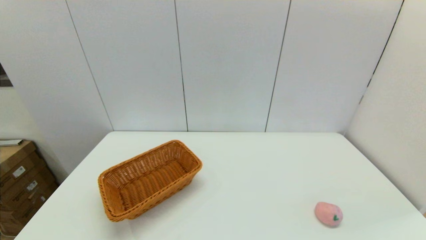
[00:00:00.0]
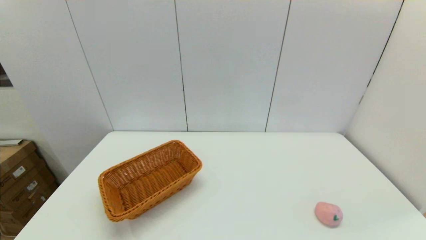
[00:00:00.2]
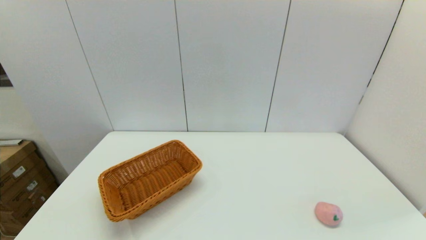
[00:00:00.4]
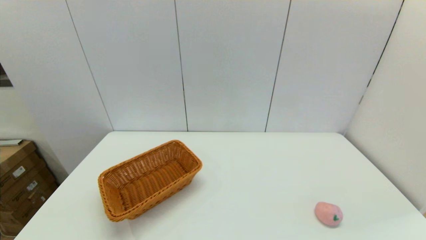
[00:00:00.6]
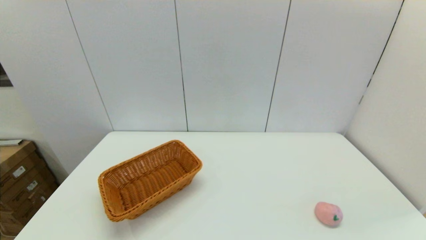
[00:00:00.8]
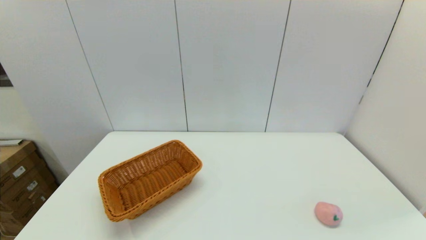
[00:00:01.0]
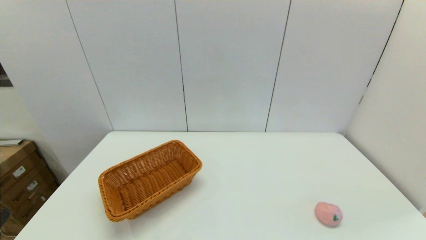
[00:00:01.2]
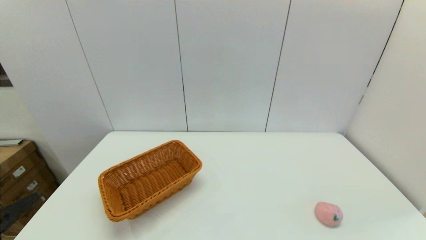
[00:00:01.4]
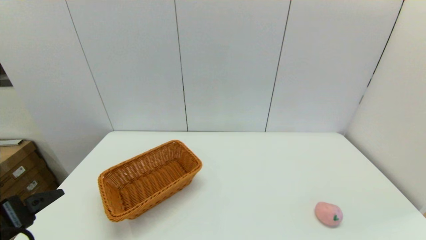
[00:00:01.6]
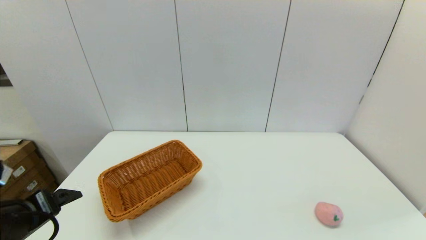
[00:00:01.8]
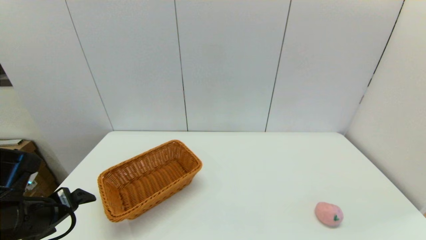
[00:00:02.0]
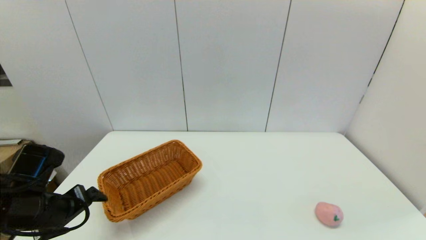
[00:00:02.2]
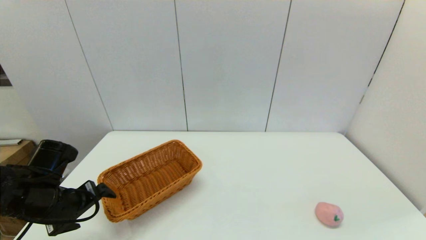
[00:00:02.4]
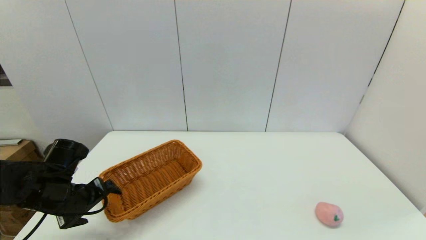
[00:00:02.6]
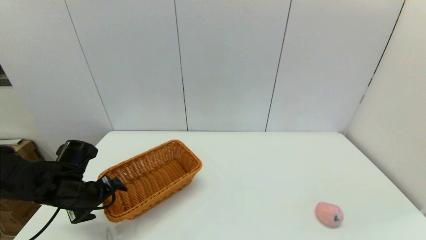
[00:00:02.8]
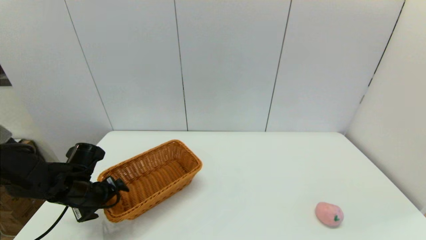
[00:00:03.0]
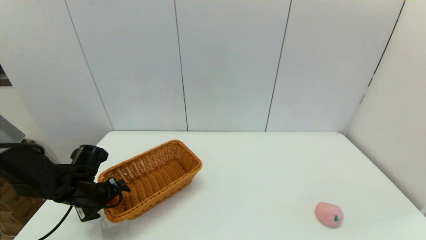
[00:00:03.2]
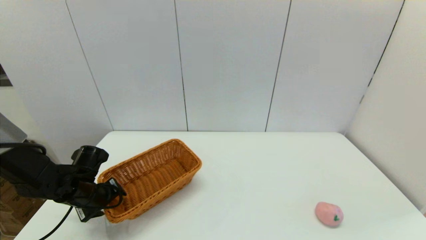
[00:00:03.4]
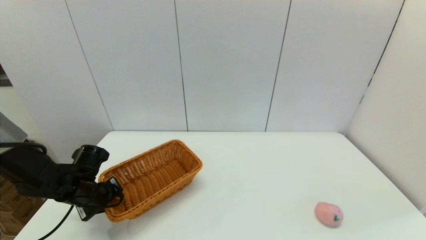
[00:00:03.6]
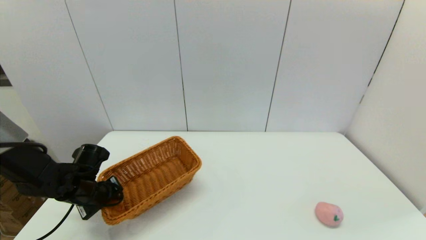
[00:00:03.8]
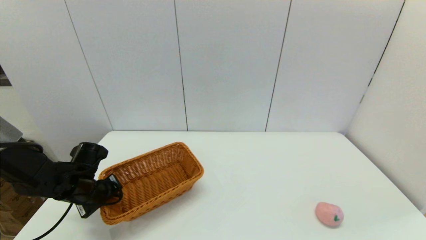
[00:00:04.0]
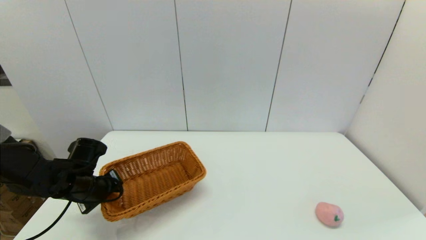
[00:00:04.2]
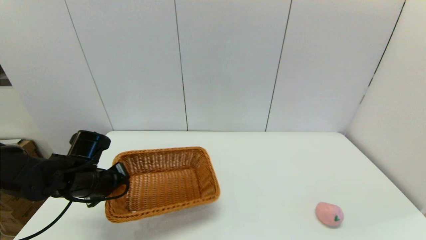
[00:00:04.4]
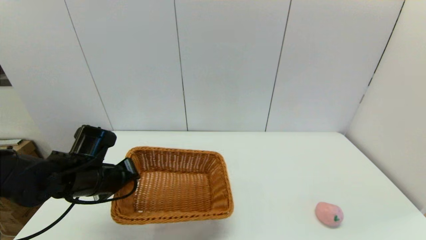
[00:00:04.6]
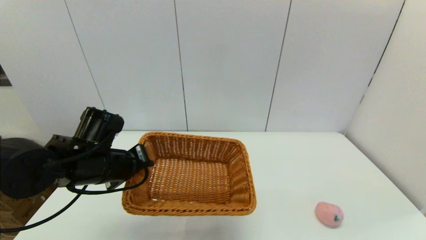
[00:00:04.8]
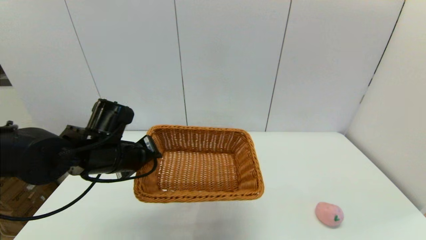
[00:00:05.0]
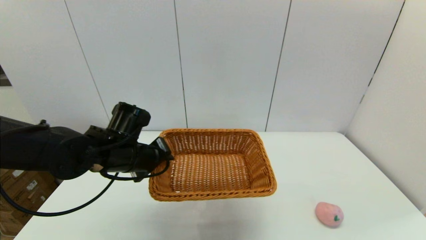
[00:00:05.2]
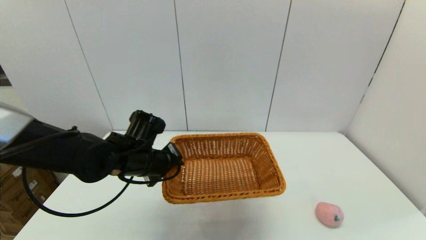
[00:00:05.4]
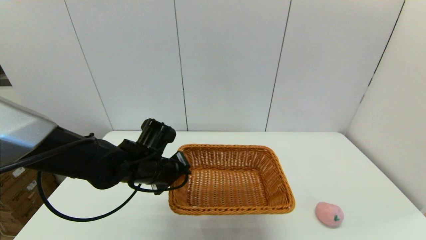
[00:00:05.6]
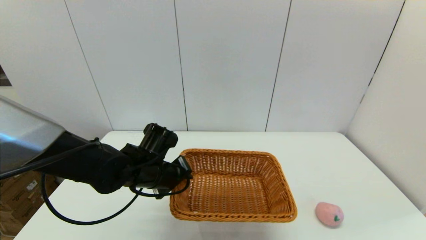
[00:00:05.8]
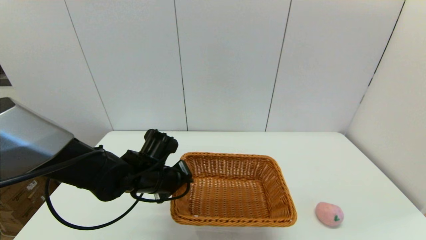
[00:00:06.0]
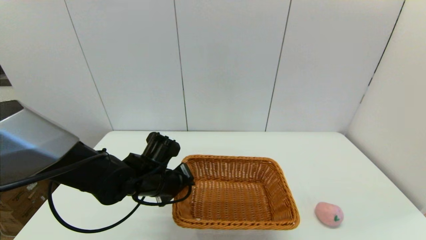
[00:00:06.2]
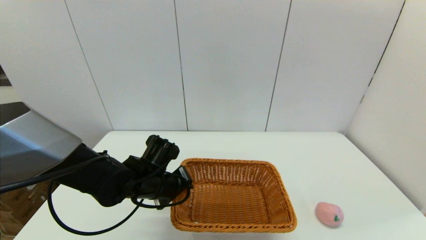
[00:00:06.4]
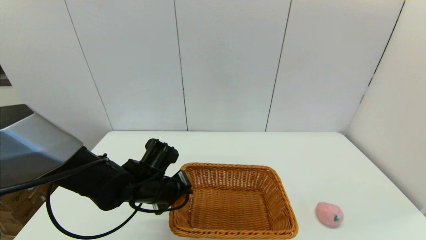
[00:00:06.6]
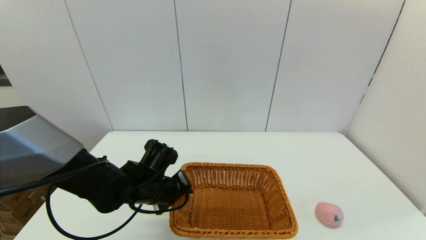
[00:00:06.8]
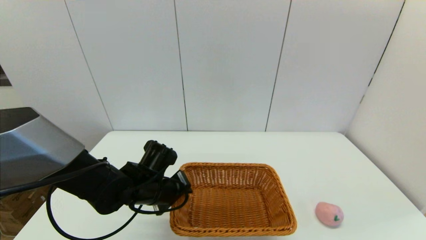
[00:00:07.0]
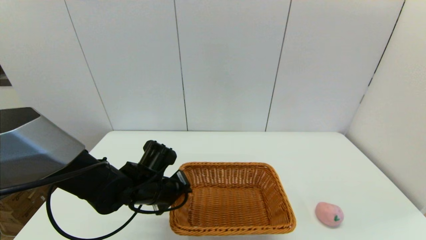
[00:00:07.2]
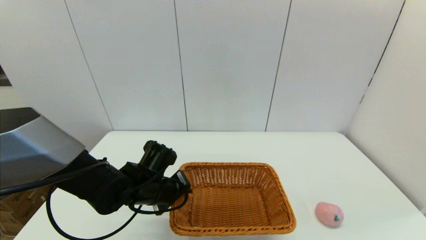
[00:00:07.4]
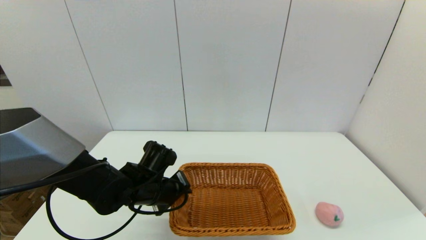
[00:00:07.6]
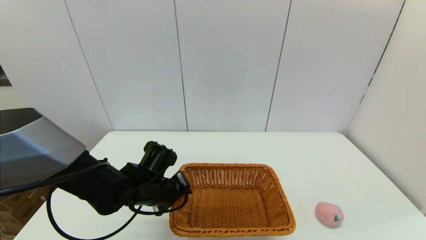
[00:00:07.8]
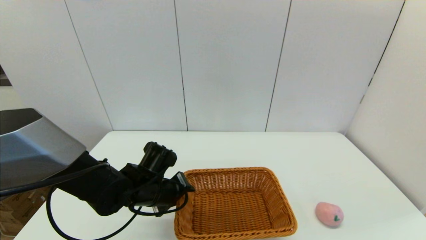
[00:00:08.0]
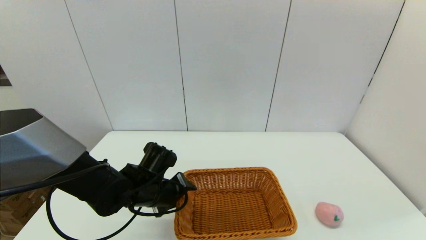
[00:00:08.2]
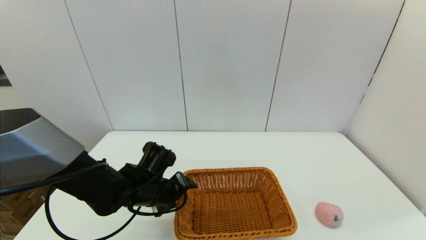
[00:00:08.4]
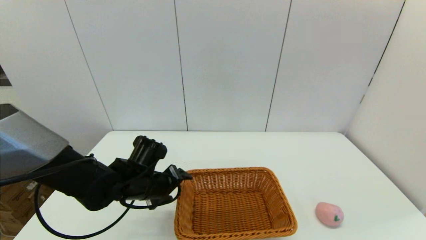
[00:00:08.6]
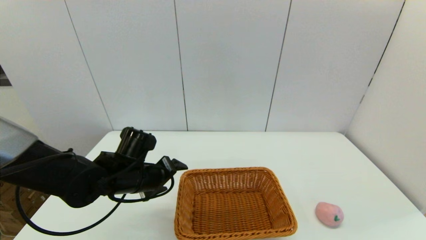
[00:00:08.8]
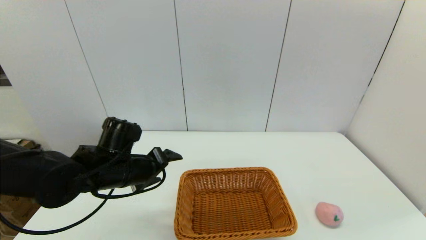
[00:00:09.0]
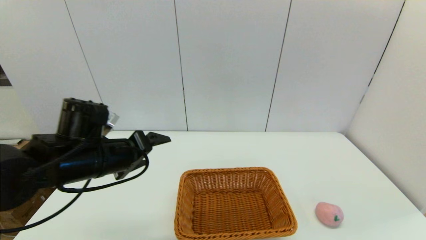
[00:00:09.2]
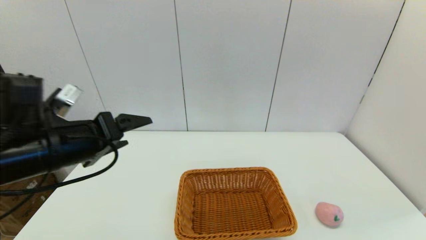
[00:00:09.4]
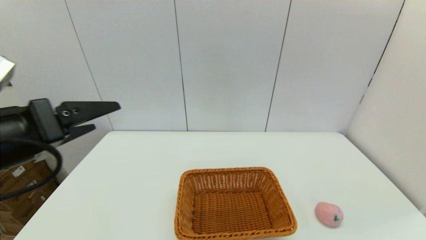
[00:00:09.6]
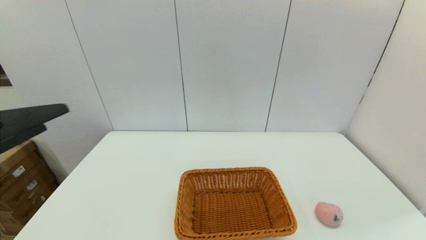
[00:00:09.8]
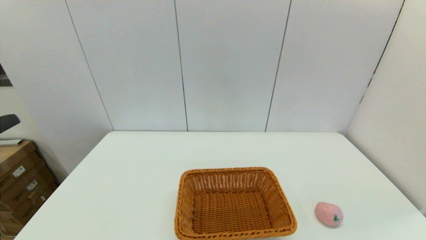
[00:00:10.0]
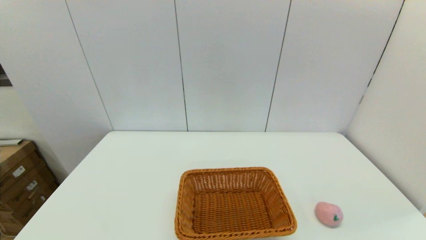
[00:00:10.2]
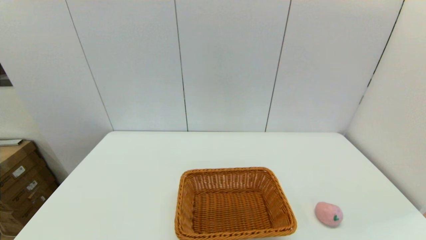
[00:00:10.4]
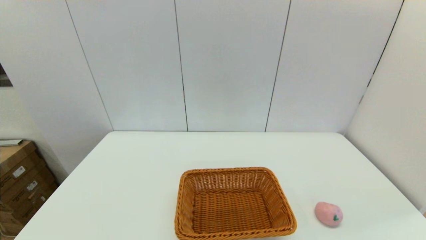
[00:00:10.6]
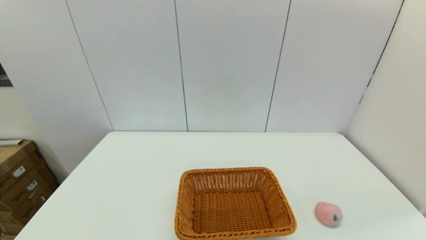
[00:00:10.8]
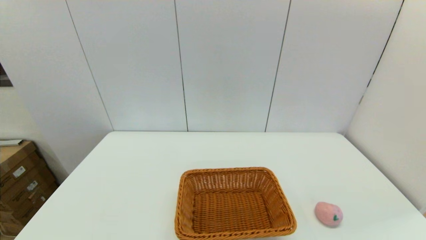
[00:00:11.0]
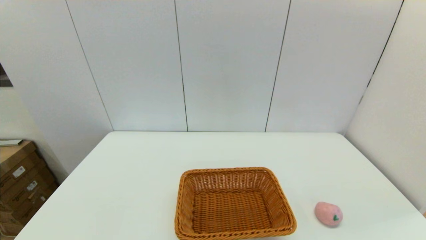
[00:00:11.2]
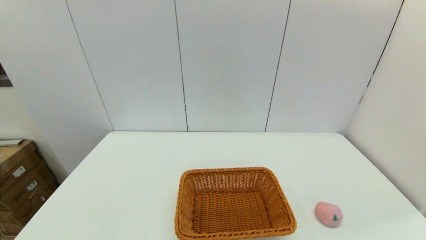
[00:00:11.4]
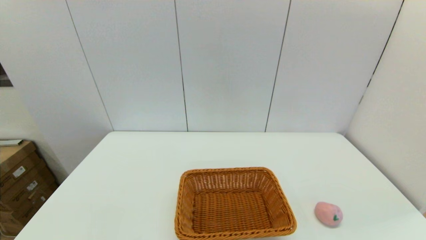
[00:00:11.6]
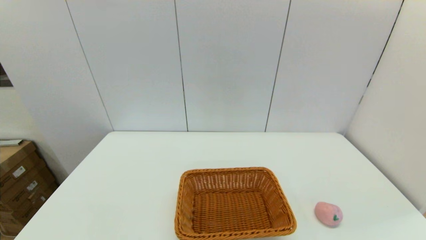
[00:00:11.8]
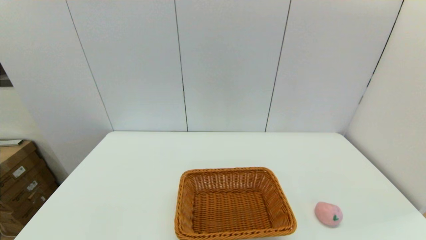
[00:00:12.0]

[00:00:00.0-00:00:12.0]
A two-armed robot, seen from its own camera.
Step, 00:00:00.0 to 00:00:03.8: Grasp the light basket with the left gripper.
Step, 00:00:04.2 to 00:00:08.2: Place the light basket on the middle of the table with the left gripper.
00:00:00.0 to 00:00:01.6: The left gripper heads forward and upward, covering roughly 15 cm.
00:00:01.6 to 00:00:03.0: The left gripper travels forward and downward by about 20 cm.
00:00:03.0 to 00:00:04.4: The left gripper closes up.
00:00:04.4 to 00:00:06.0: The left gripper is displaced to the right by roughly 15 cm.
00:00:06.0 to 00:00:07.6: There are only small adjustments of the grippers.
00:00:07.6 to 00:00:09.0: The left gripper heads upward, covering some 10 cm, and opens its fingers.
00:00:09.0 to 00:00:10.4: The left gripper heads backward and to the left, covering roughly 30 cm.

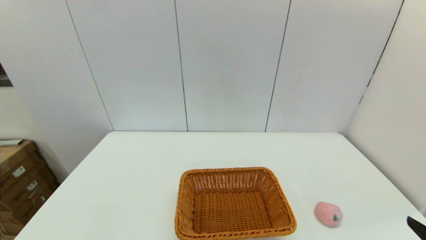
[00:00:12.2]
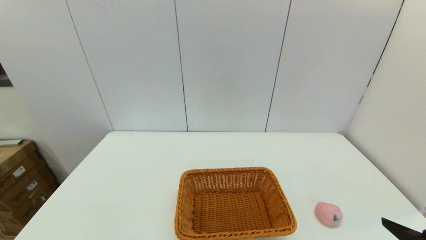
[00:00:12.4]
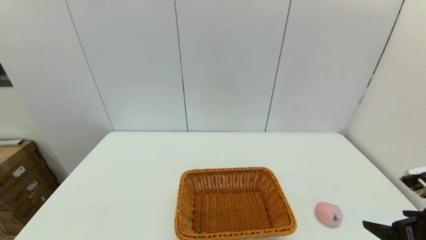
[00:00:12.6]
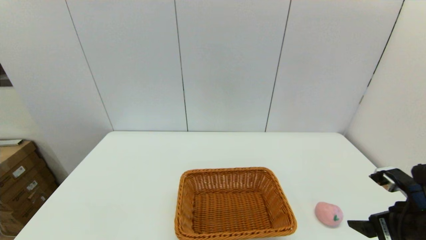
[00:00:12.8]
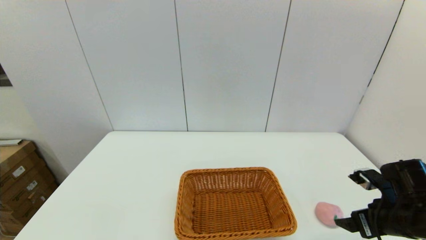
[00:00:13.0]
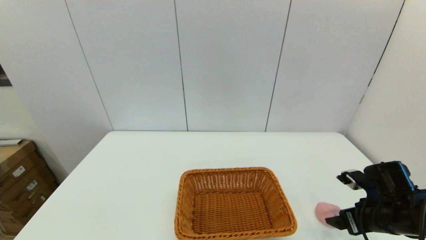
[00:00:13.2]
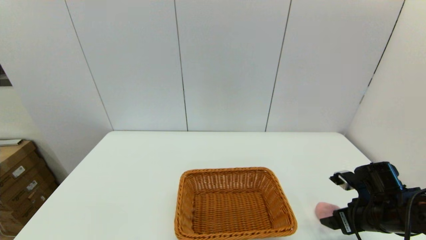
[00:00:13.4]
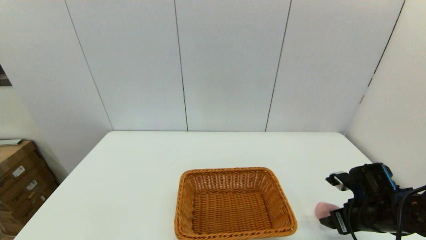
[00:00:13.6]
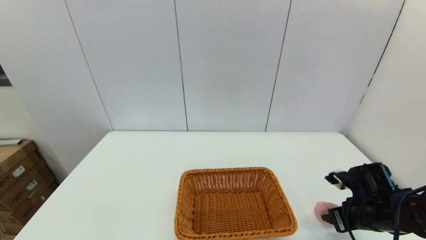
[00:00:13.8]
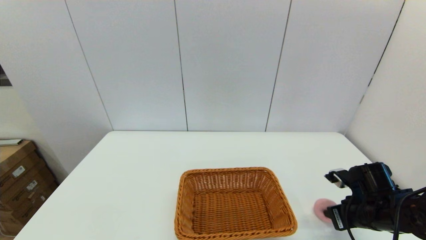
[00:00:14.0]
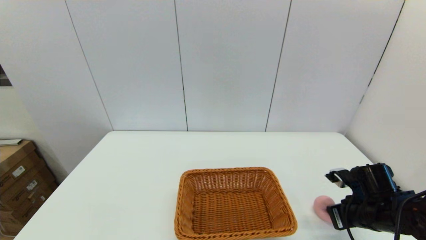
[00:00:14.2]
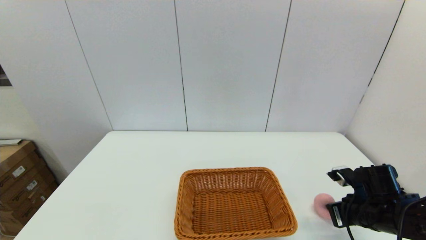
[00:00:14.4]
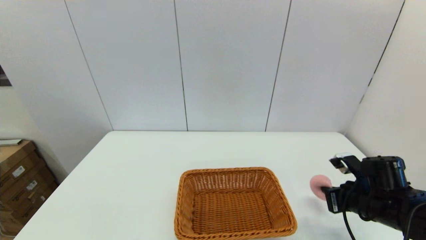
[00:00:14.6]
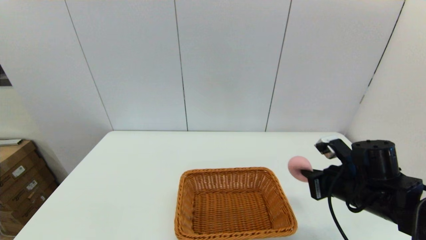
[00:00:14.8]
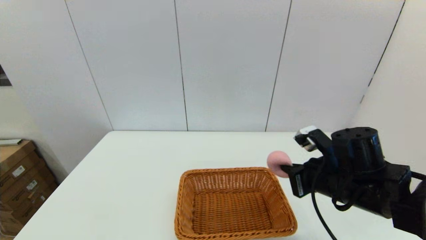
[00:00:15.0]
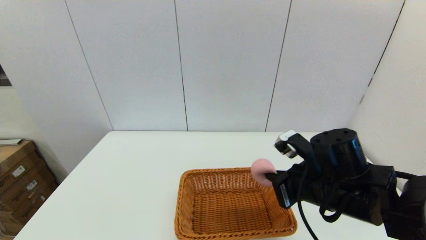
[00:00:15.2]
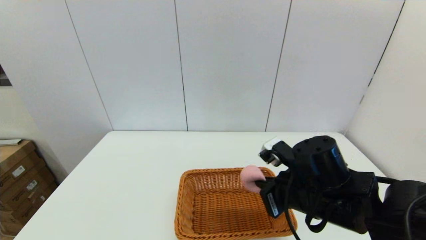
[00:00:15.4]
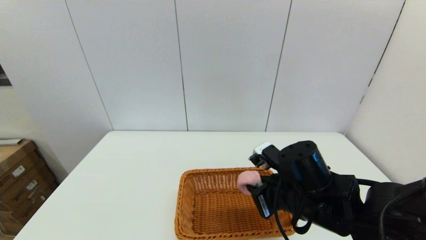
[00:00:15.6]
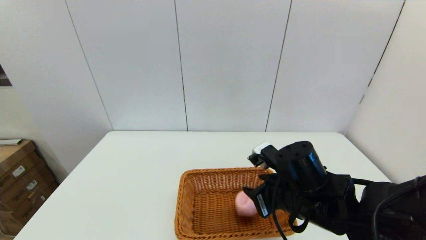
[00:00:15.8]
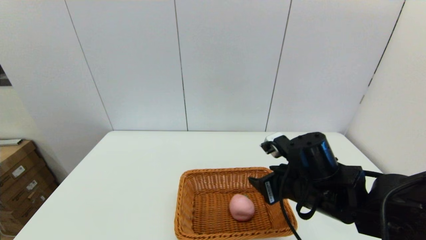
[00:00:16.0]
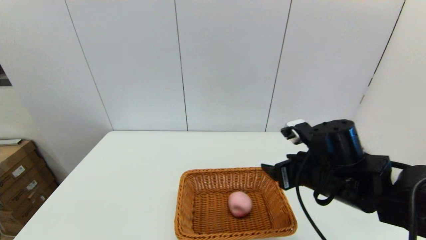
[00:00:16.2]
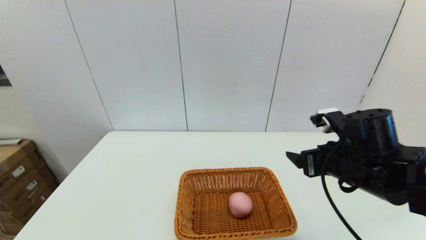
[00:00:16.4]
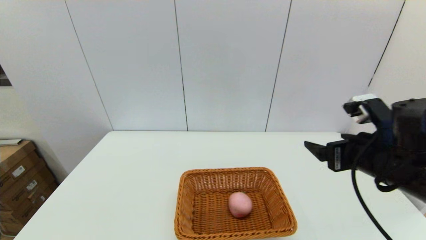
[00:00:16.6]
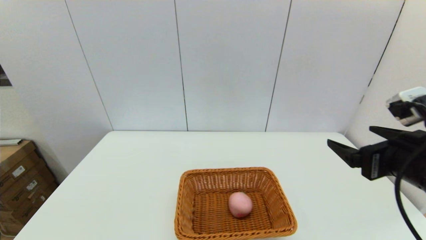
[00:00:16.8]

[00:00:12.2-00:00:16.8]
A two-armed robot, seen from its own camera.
Step, 00:00:14.4 to 00:00:15.8: Place the peach into the light basket with the right gripper.
00:00:12.2 to 00:00:13.8: The right gripper heads forward and downward, covering roughly 20 cm, and closes.
00:00:13.8 to 00:00:15.2: The right gripper travels to the left and upward by about 20 cm, and closes its fingers.
00:00:15.2 to 00:00:16.8: The right gripper is displaced to the right, upward and backward by roughly 15 cm, and opens its fingers.
